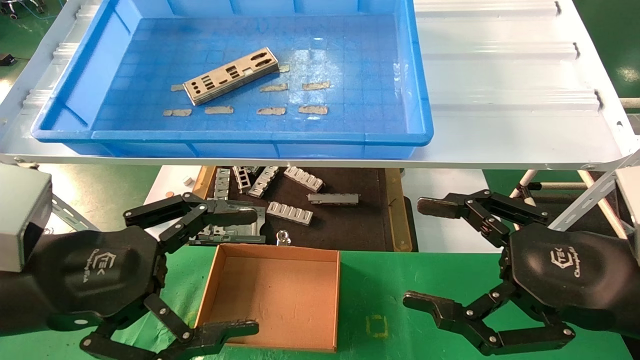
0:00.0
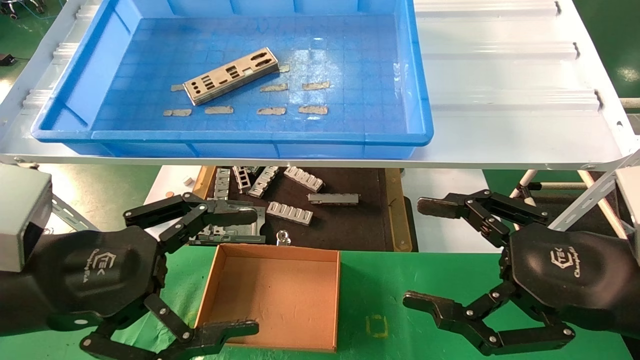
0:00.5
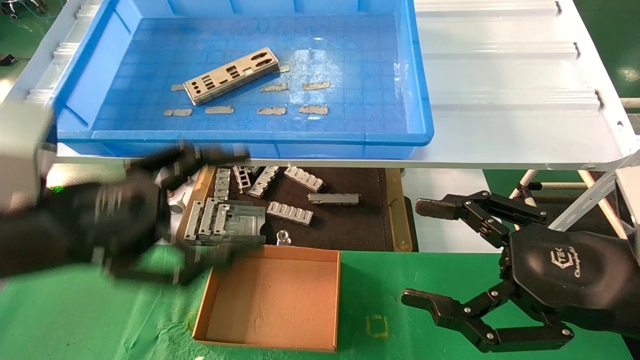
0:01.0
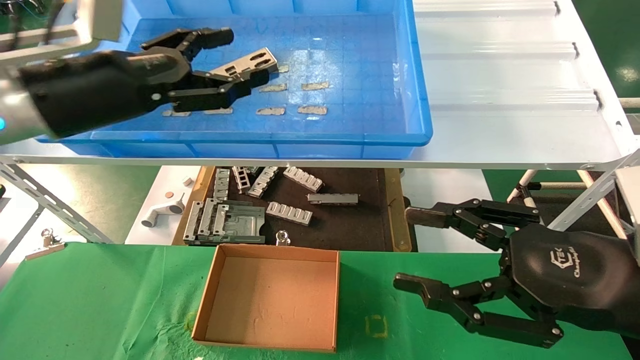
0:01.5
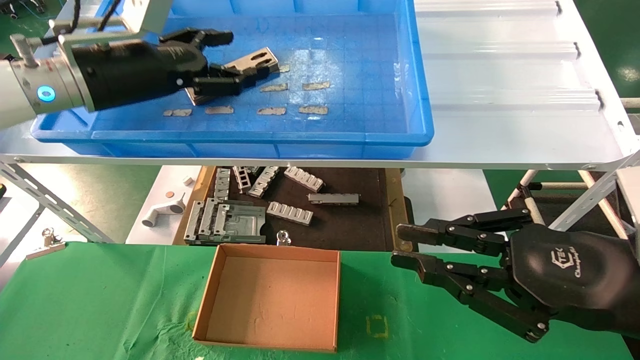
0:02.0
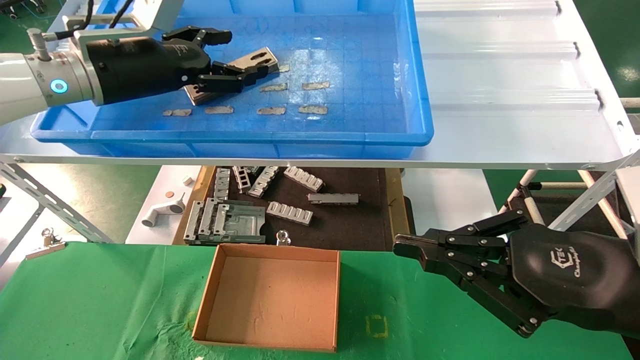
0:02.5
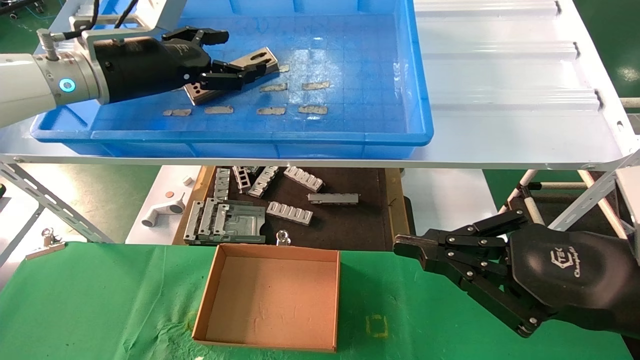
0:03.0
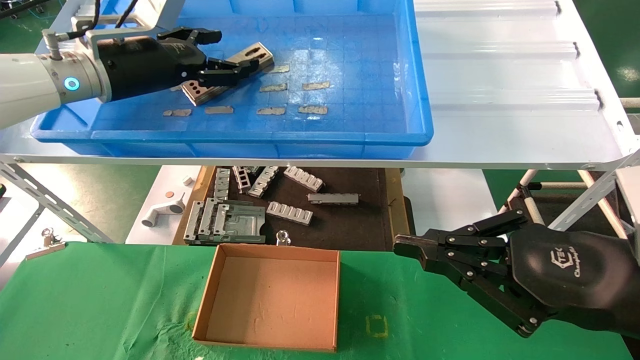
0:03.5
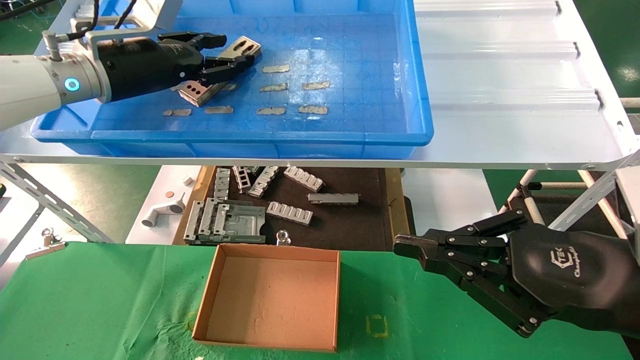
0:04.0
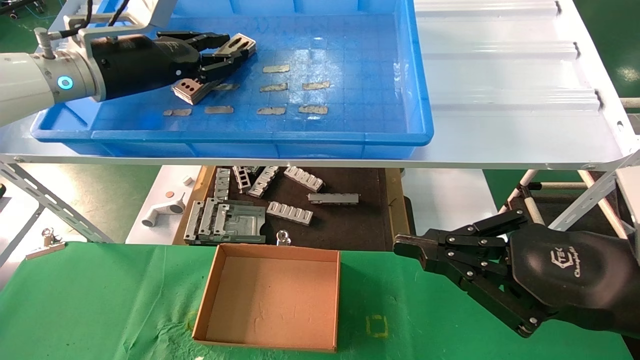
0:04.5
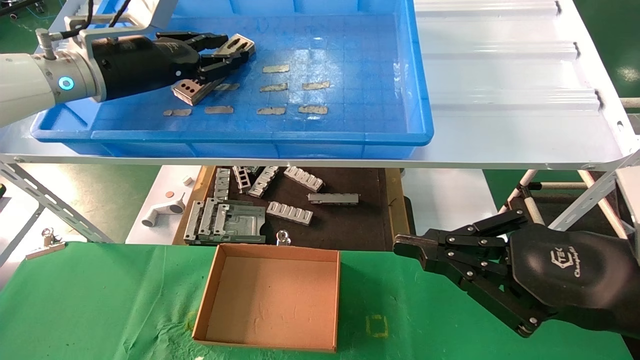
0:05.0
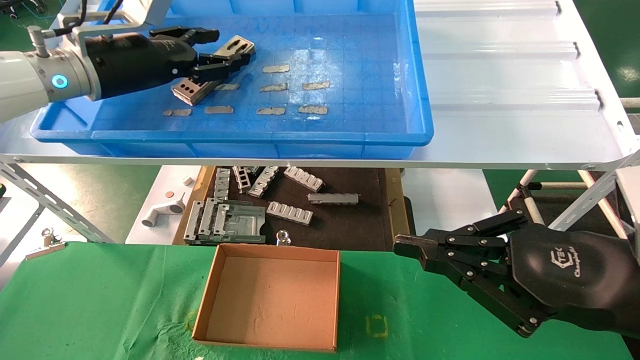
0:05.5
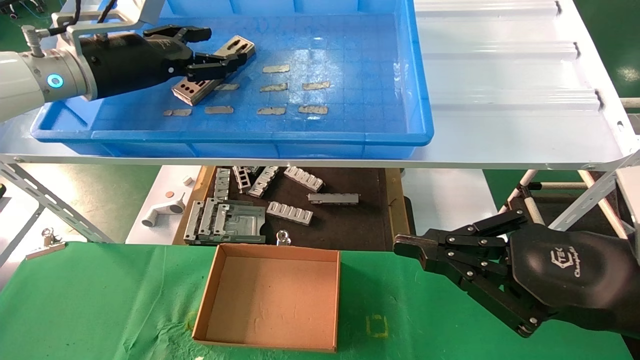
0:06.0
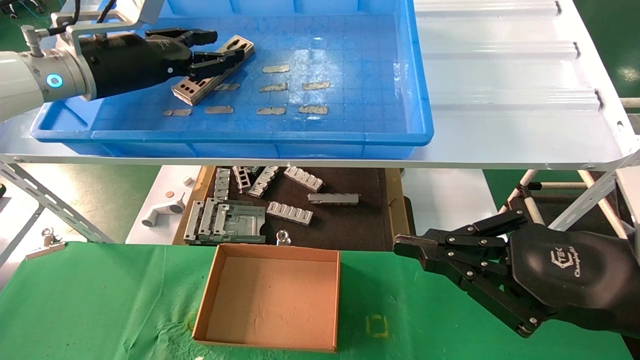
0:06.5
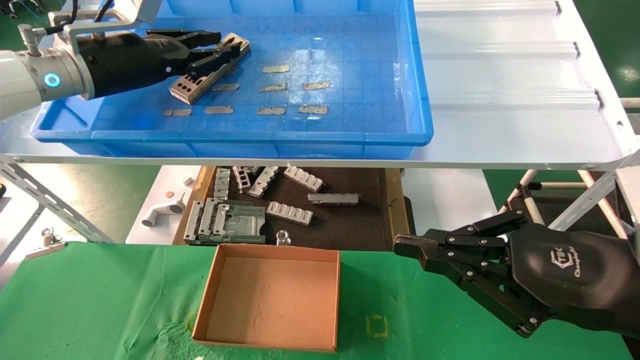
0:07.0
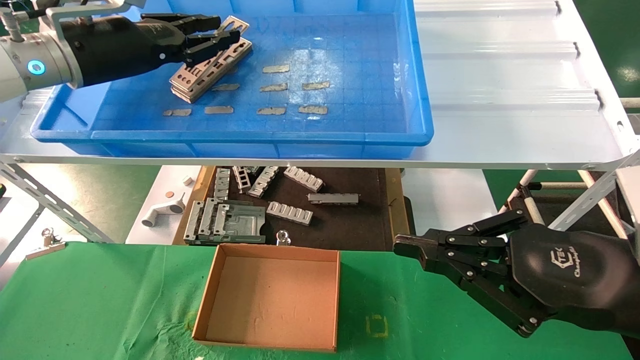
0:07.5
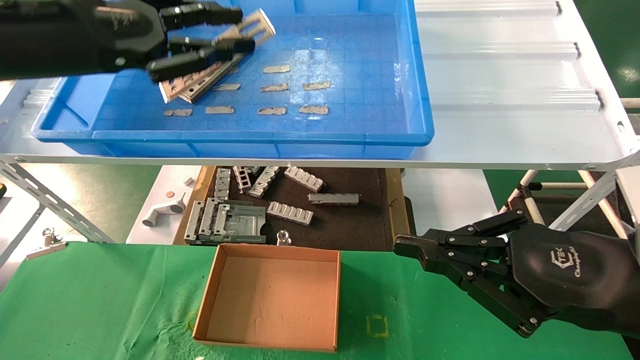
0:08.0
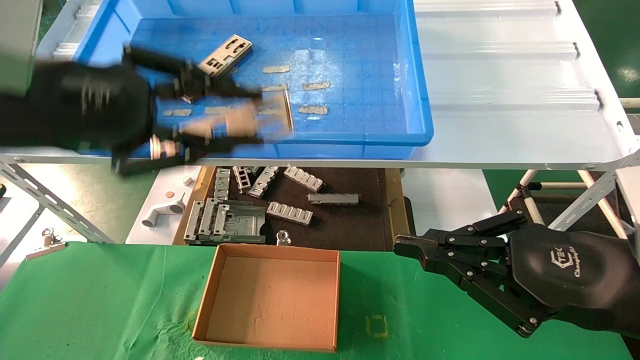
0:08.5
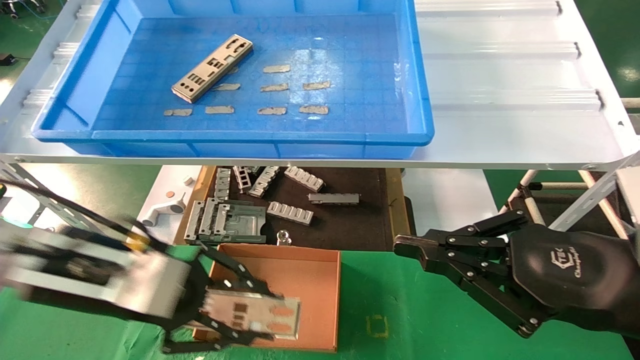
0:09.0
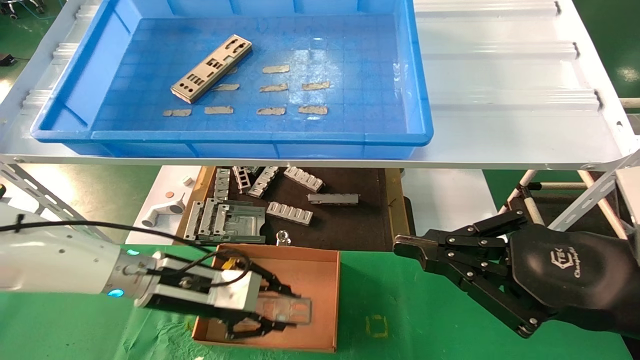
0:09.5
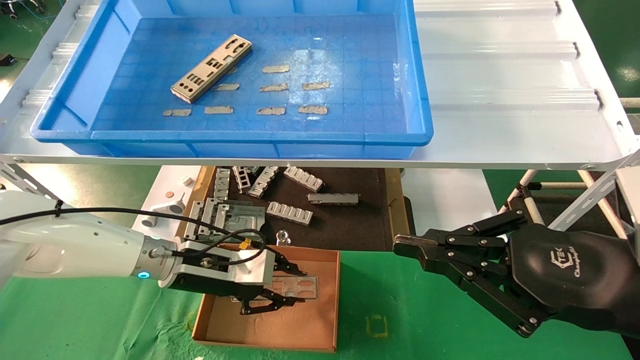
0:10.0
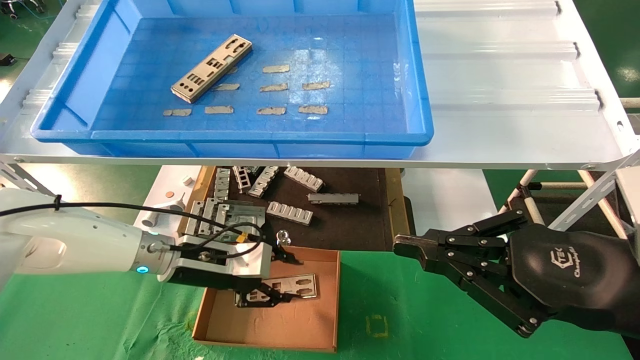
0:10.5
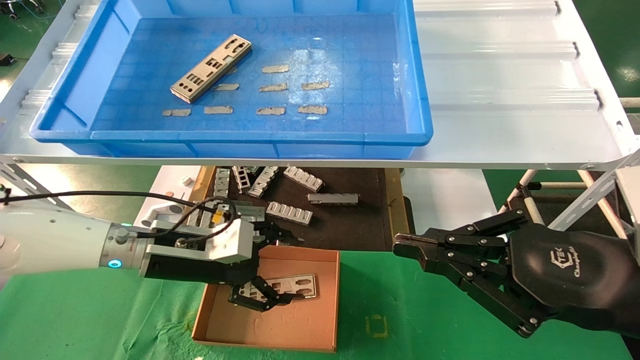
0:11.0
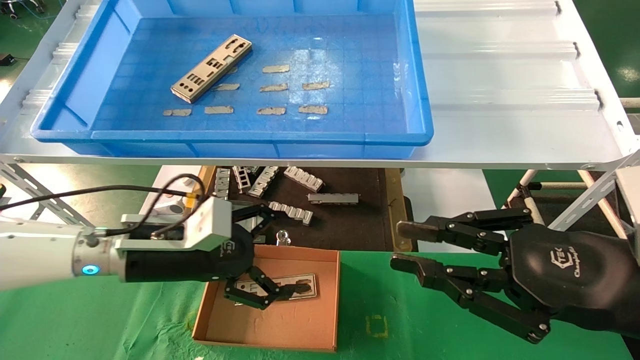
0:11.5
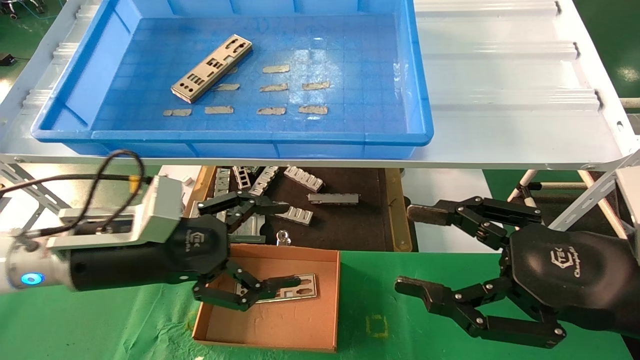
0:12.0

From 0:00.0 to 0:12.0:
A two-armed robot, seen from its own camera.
Task of the whole recording: pick up the parts on the tray and put them in the cardboard box.
Step, from 0:01.0 to 0:07.0: Pick up the IO bracket from the container box.
Step, from 0:07.5 to 0:10.5: Place the IO bracket into the ingredient slot.
From 0:00.0 to 0:02.0: The left gripper travels forward and upward by about 25 cm. The right gripper closes.
From 0:02.0 to 0:04.0: The left gripper closes.
From 0:04.0 to 0:06.0: The left gripper closes, then reopens.
From 0:06.0 to 0:08.0: The left gripper is displaced backward by roughly 10 cm, and closes up.
From 0:08.0 to 0:10.0: The left gripper is displaced downward by about 30 cm.
From 0:10.0 to 0:12.0: The right gripper opens; the left gripper goes some 10 cm backward and upward, and opens.

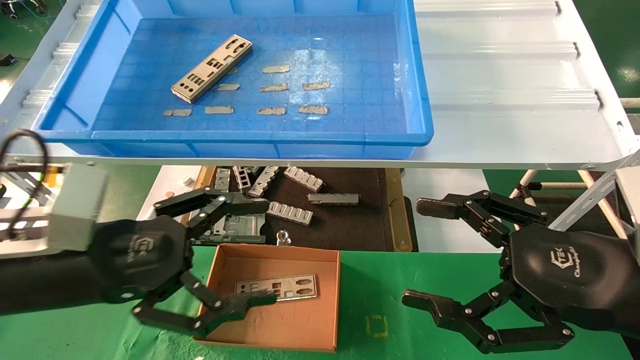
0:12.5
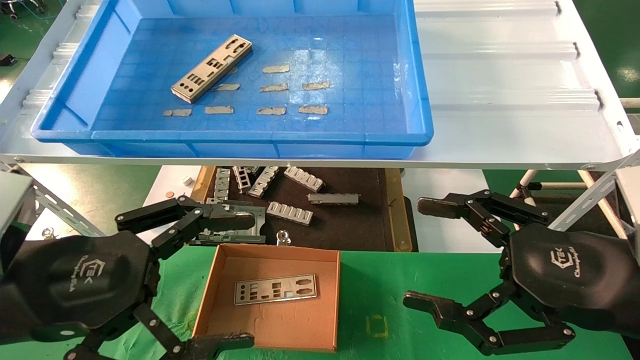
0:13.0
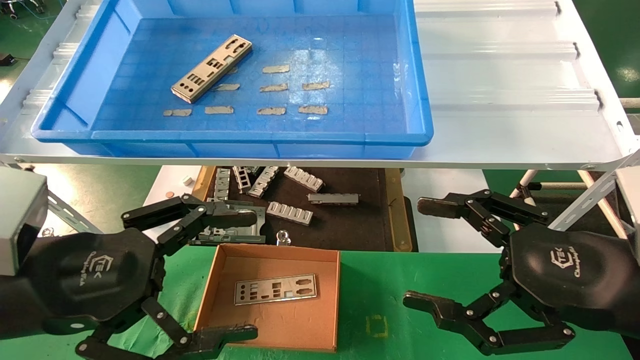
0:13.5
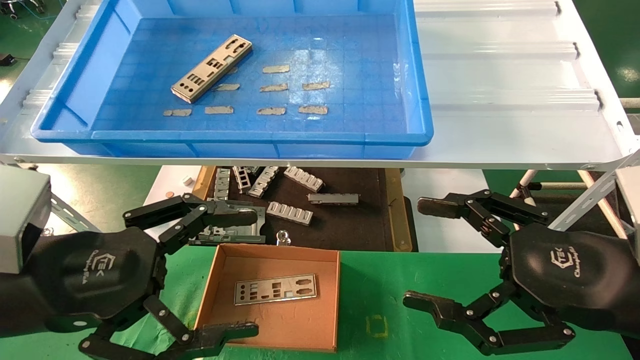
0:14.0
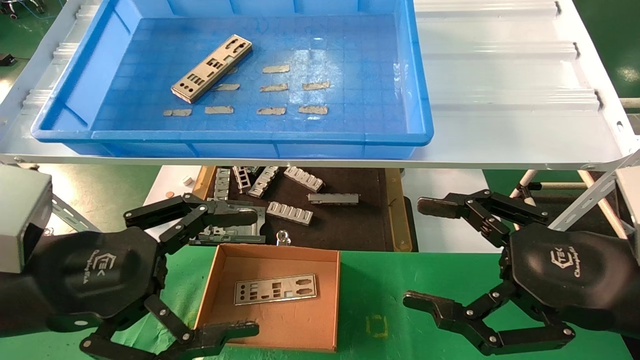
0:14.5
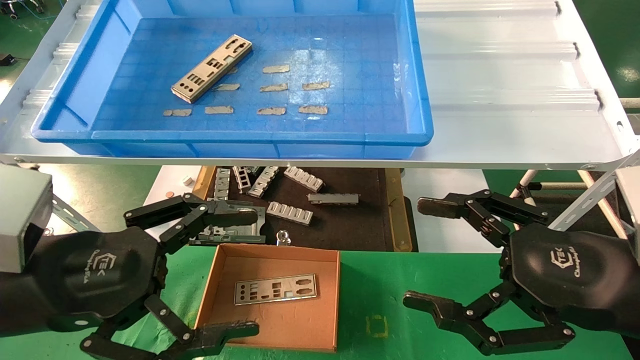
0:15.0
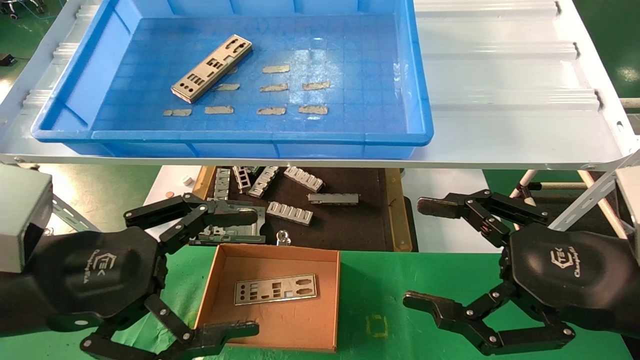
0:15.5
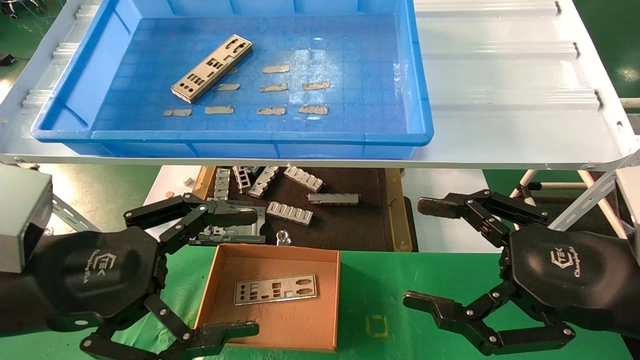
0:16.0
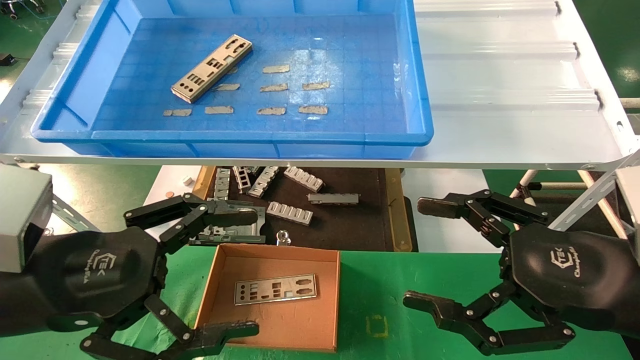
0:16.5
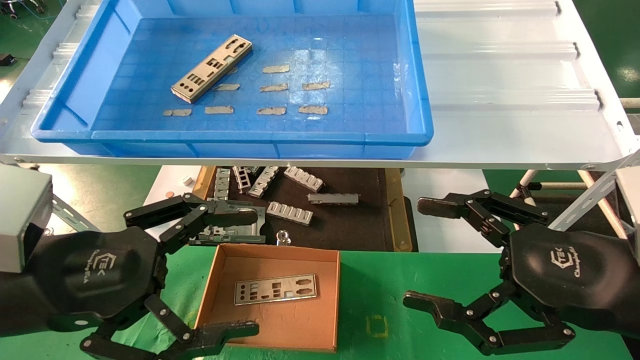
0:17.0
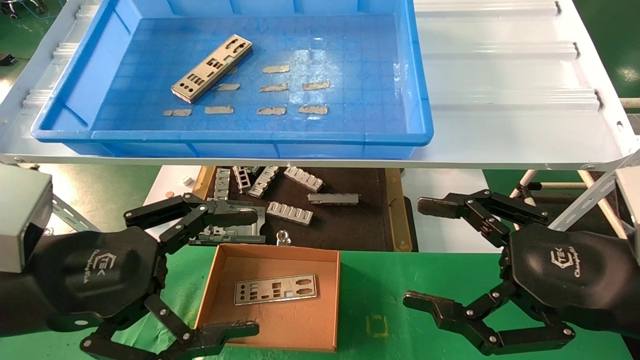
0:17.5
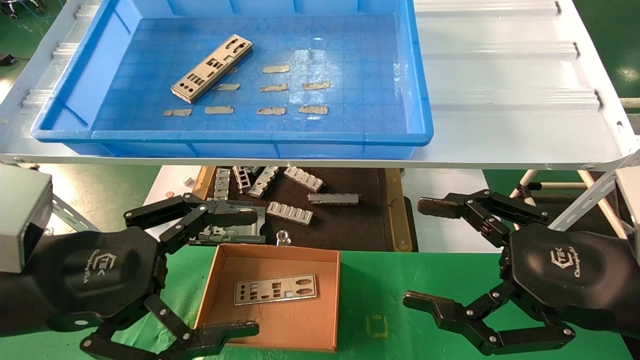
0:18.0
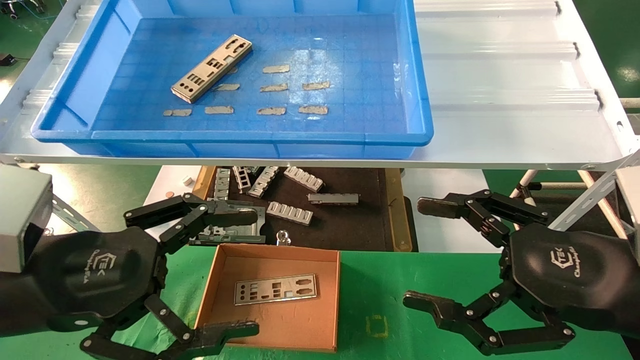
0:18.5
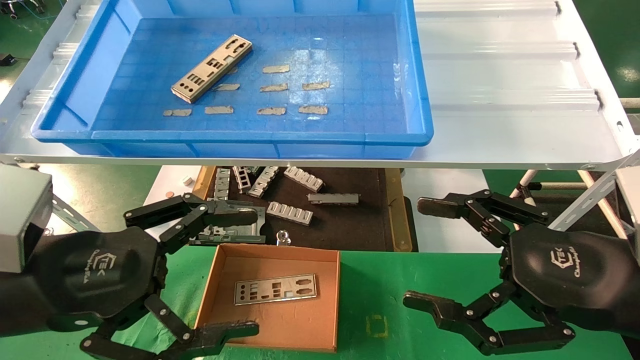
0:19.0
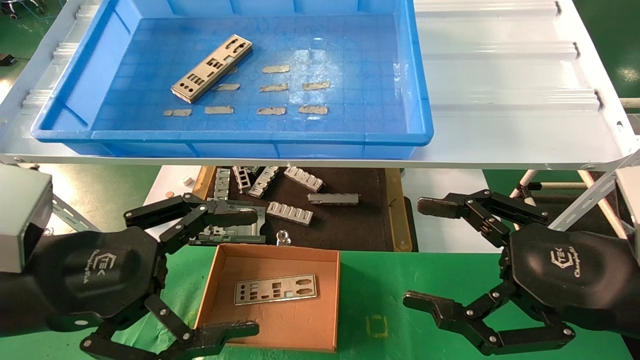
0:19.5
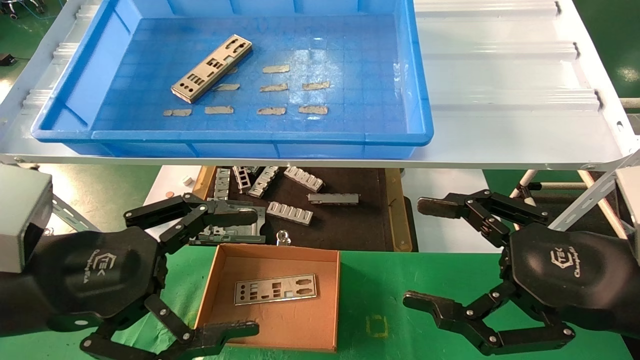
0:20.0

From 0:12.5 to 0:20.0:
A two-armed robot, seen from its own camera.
Task of the whole recording: pick up the parts on the tray and put them in the cardboard box.
From 0:12.5 to 0:14.5: The grippers stay close to where they were, moving slightly.
From 0:14.5 to 0:20.0: Both grippers stay about where they are.
